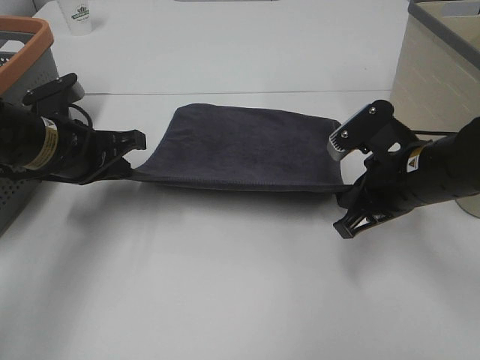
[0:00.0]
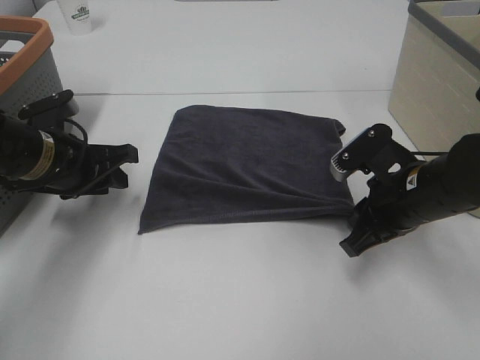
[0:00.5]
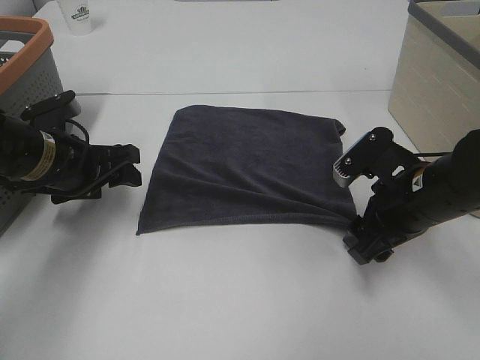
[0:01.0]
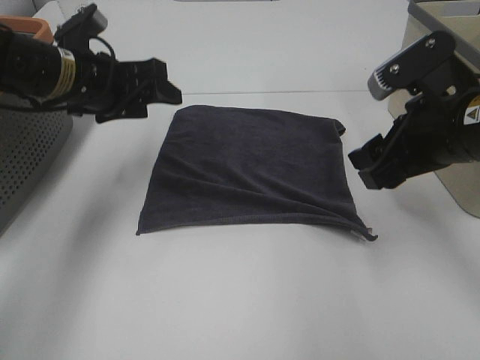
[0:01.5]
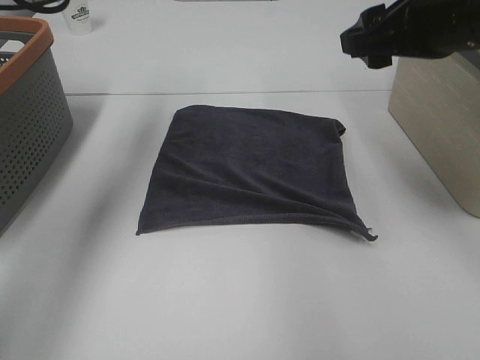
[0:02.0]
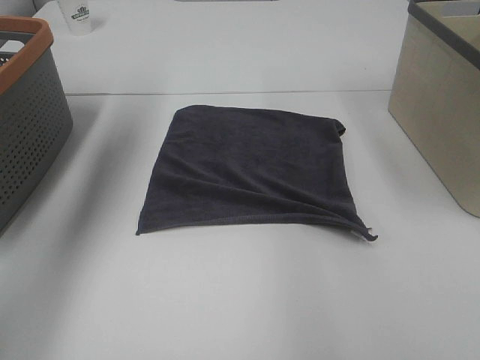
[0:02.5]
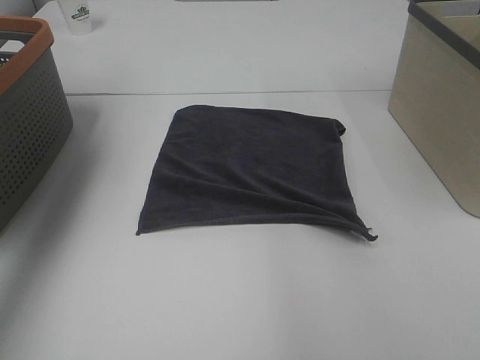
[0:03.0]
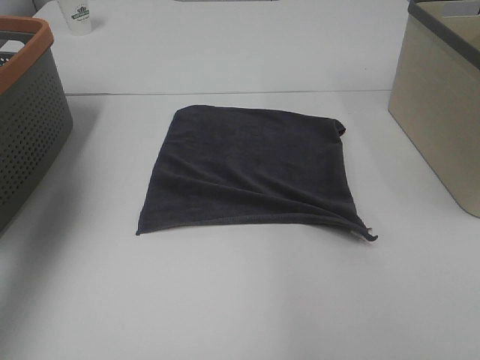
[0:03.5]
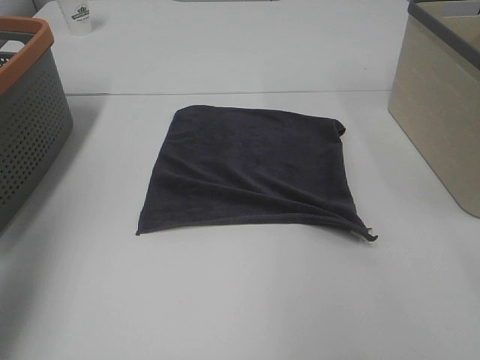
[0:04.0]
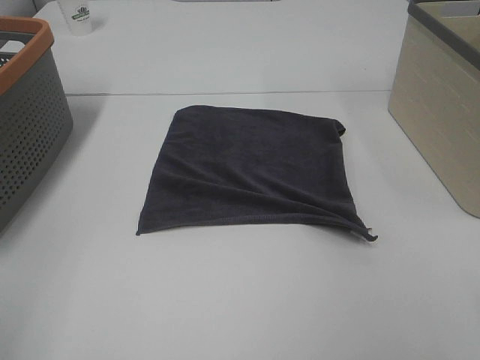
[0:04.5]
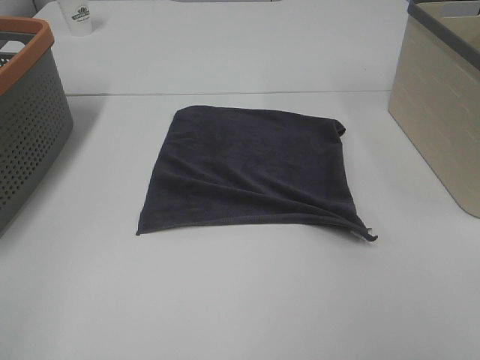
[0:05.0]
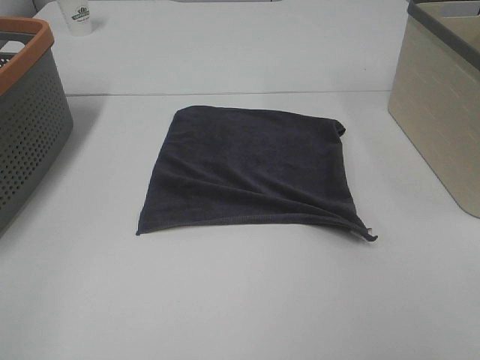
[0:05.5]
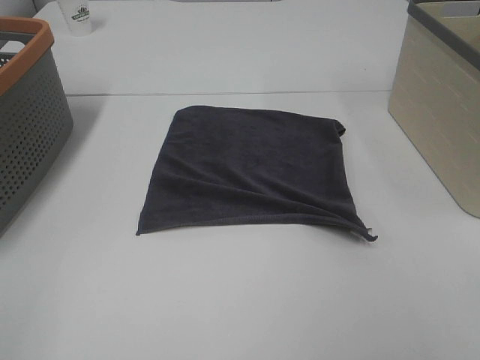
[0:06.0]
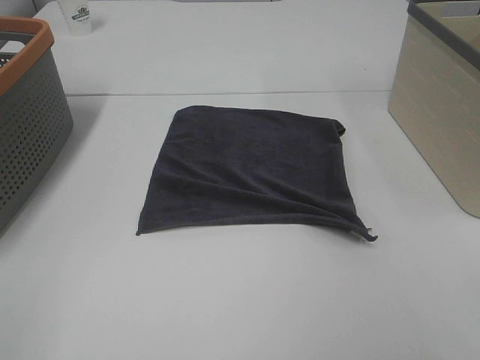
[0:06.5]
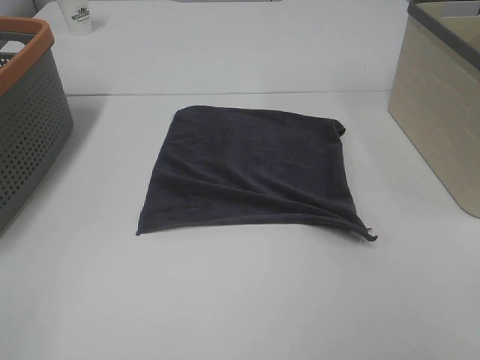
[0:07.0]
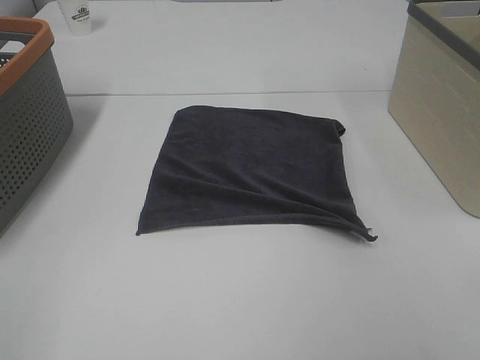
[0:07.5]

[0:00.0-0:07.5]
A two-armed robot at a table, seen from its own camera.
Task of the whole recording: Remove the towel and place it.
0:00.0 to 0:02.0: The right gripper shifts approximately 15 cm upward, and opens; the left gripper shifts some 20 cm upward and forward, and opens.
0:02.0 to 0:04.0: The left gripper moves backward and to the left, some 30 cm, while the right gripper goes about 15 cm backward, to the right and upward.
0:04.0 to 0:05.5: The left gripper moves backward, roughly 20 cm.

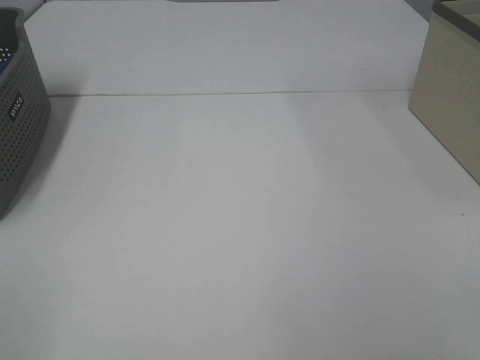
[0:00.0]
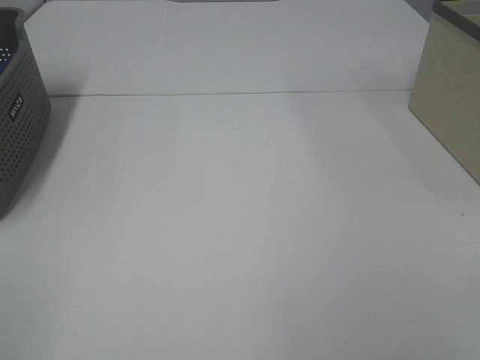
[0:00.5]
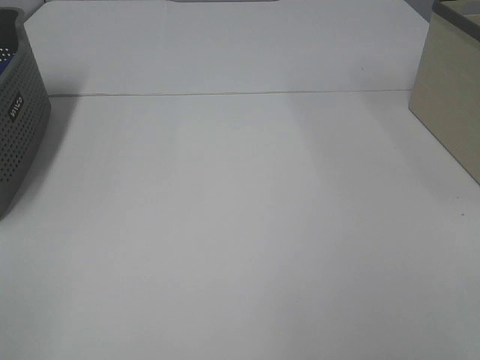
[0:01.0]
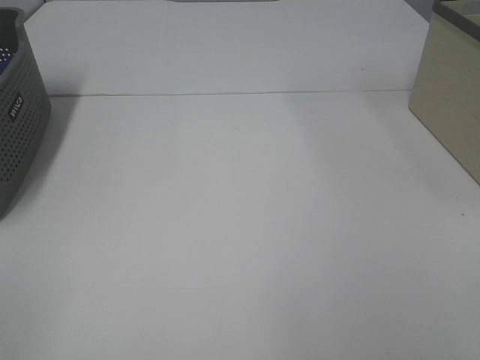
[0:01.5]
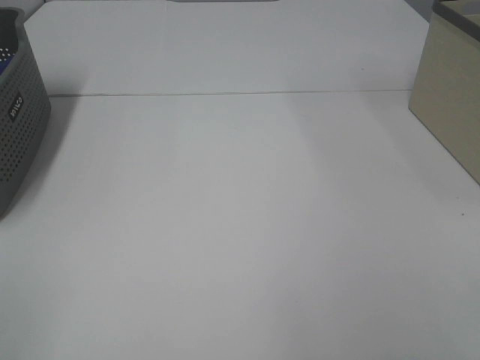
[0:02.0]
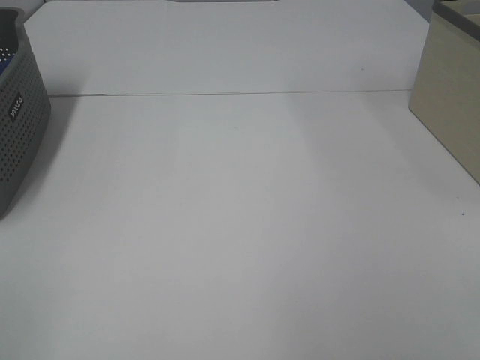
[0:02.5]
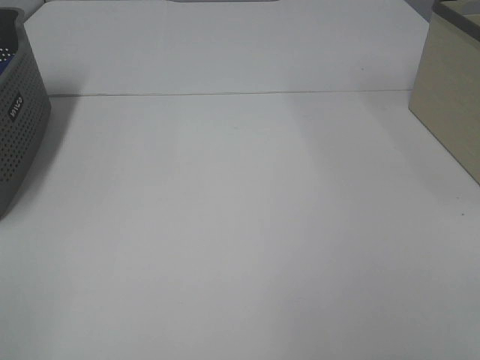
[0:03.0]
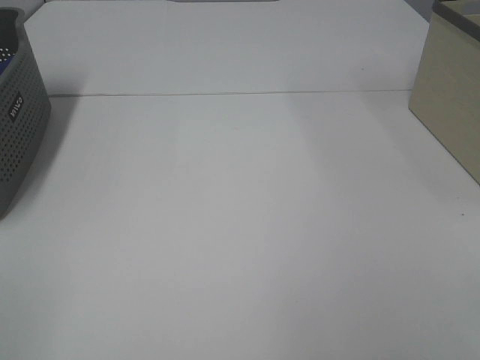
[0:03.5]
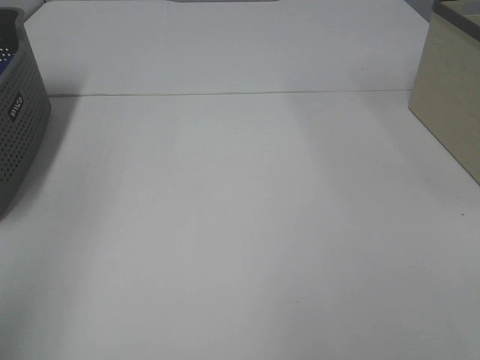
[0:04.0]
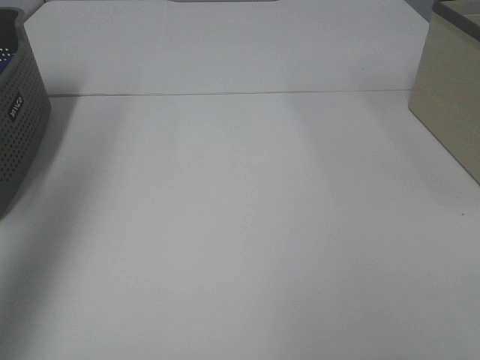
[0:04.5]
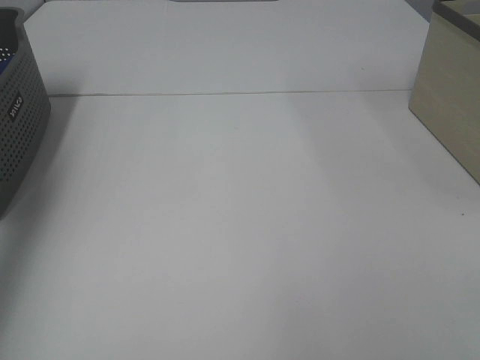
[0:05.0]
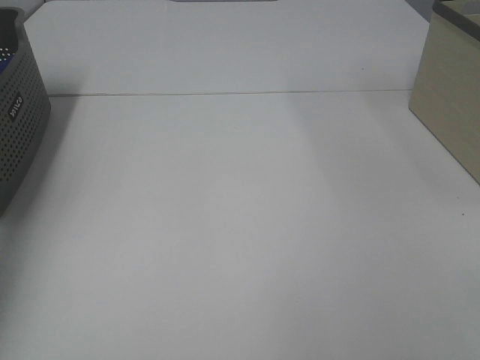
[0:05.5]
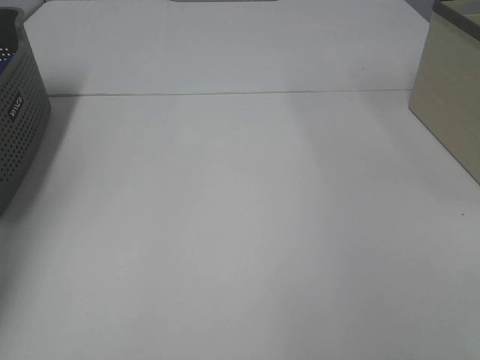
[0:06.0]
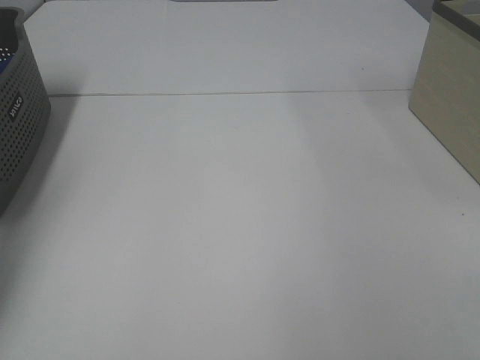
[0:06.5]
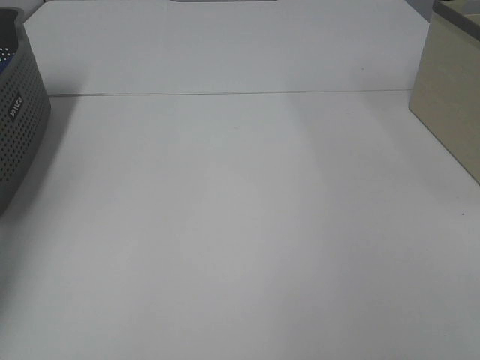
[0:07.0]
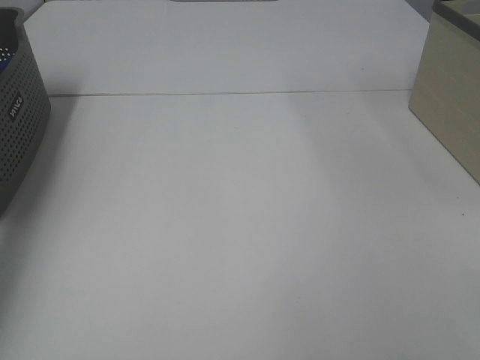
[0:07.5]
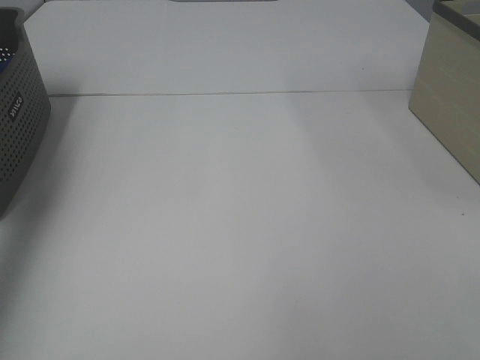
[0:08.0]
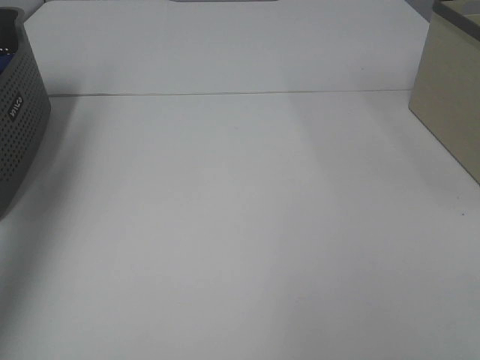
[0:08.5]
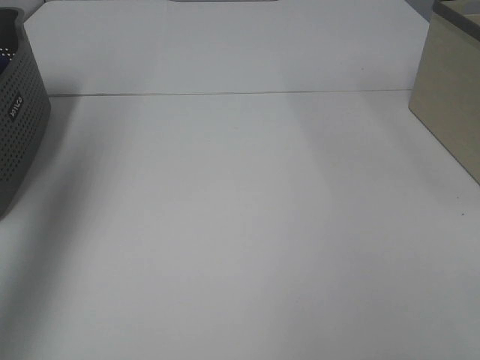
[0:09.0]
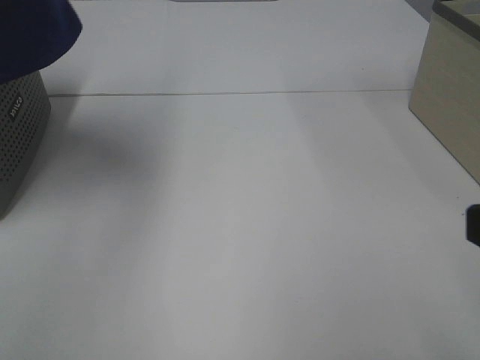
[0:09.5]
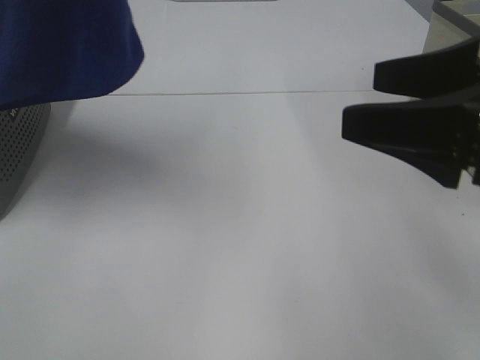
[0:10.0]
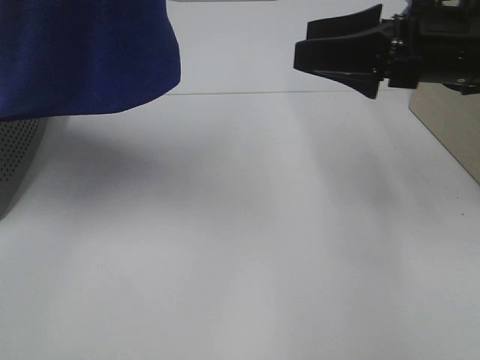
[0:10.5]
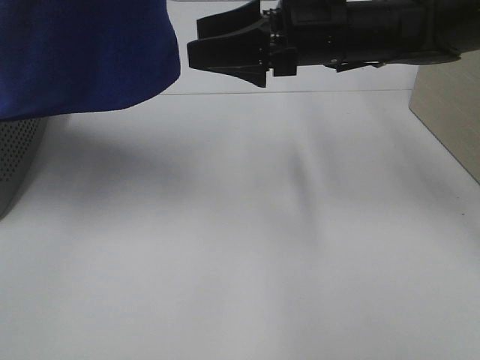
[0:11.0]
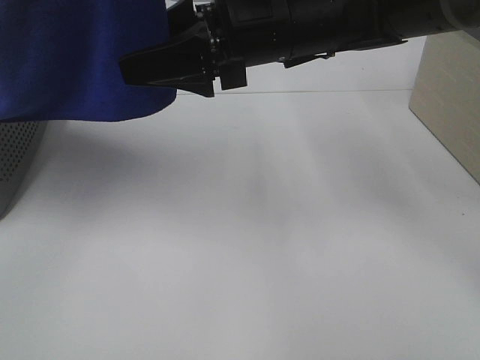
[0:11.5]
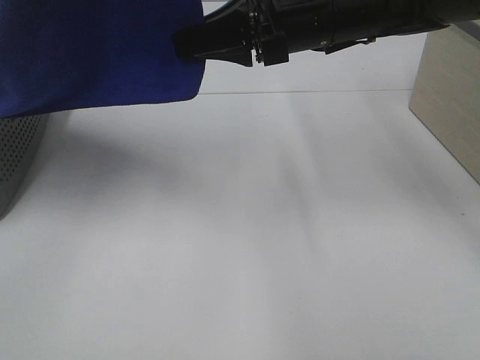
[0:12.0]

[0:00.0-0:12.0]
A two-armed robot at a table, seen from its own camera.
Task of the whole recording: Remove the towel and place it.
Step, 0:09.0 to 0:11.5: Right hand: grab a corner of the blue towel and straighten it.
0:00.0 to 0:02.0: The two grippers keep their place.
0:04.0 to 0:06.0: The left gripper moves forward and downward, some 40 cm.
0:06.0 to 0:08.0: The left gripper travels upward by some 20 cm, and closes up.
0:08.0 to 0:10.0: The right gripper shifts approximately 20 cm forward, while the left gripper moves to the right, upward and backward, roughly 35 cm.
0:10.0 to 0:12.0: The right gripper travels forward and to the left by about 25 cm, and closes its fingers.

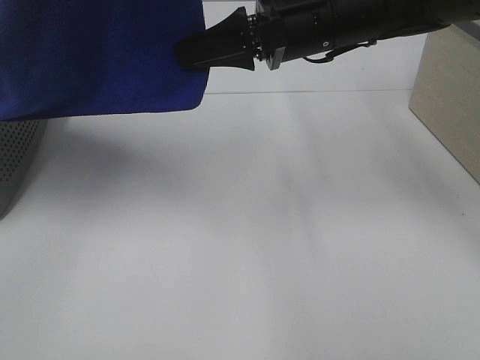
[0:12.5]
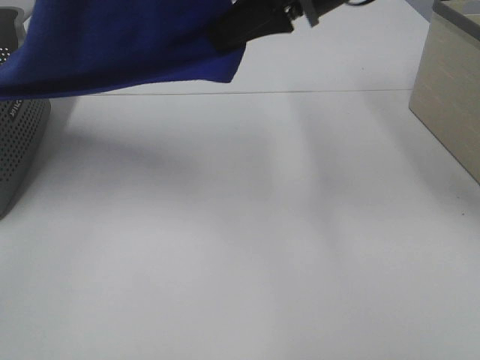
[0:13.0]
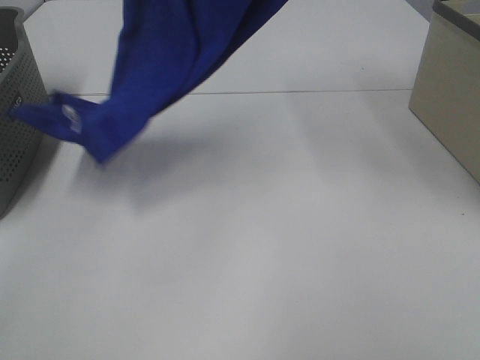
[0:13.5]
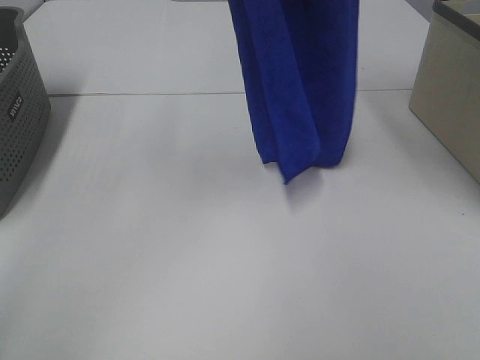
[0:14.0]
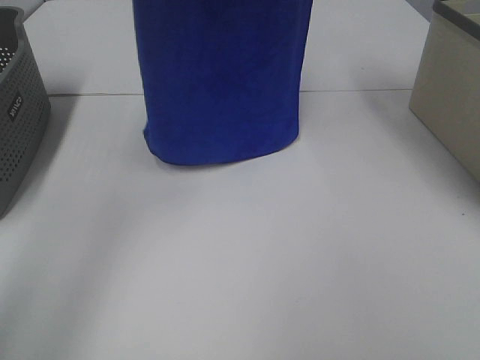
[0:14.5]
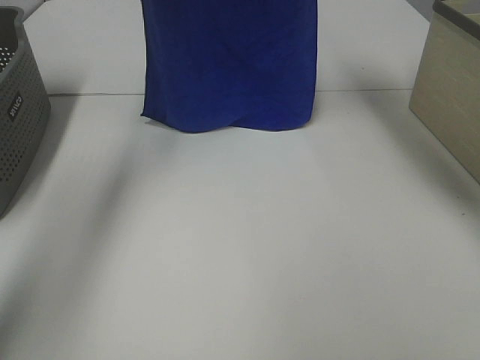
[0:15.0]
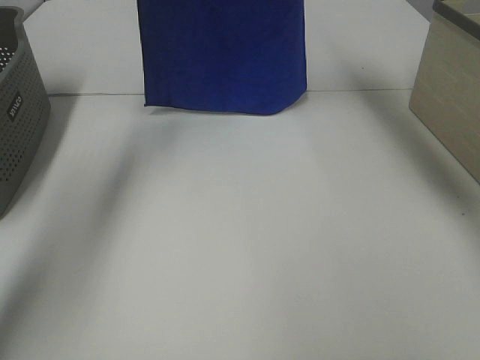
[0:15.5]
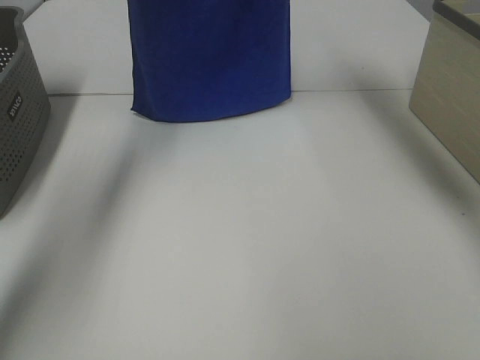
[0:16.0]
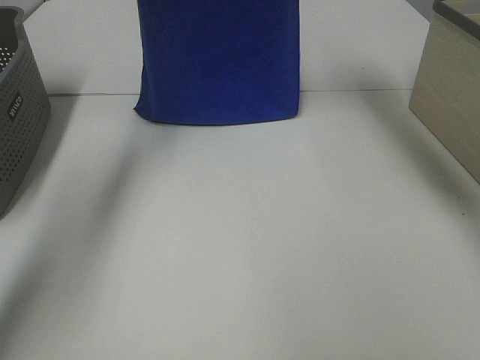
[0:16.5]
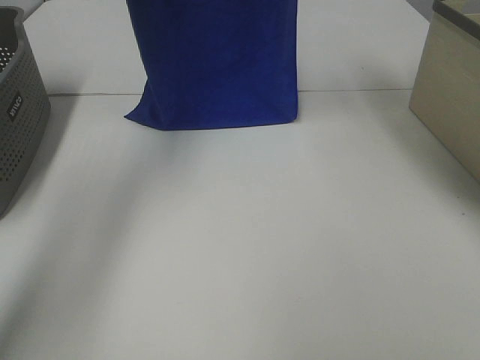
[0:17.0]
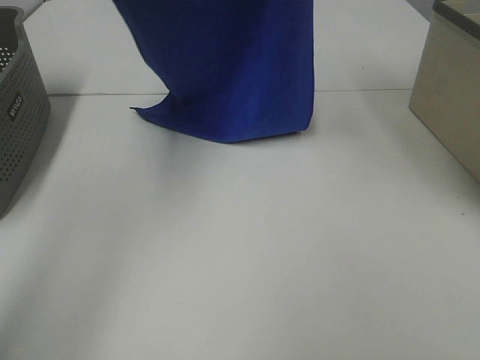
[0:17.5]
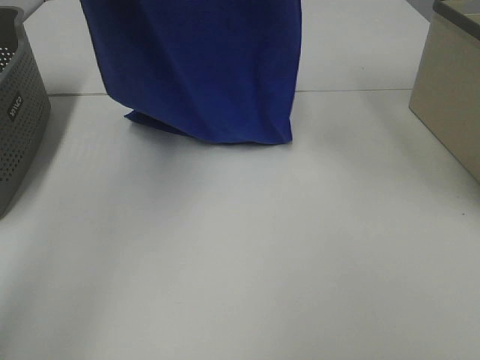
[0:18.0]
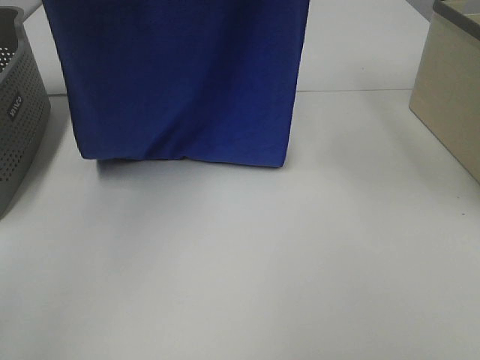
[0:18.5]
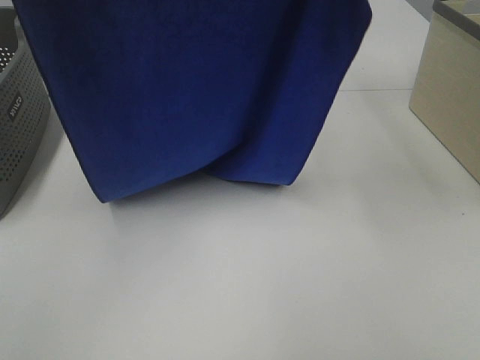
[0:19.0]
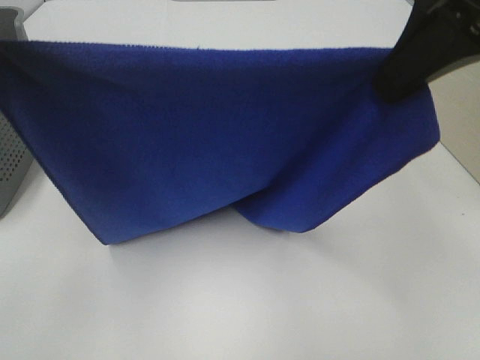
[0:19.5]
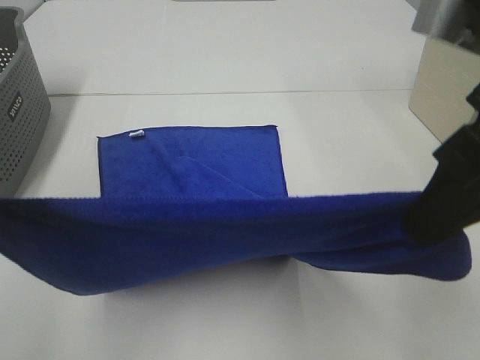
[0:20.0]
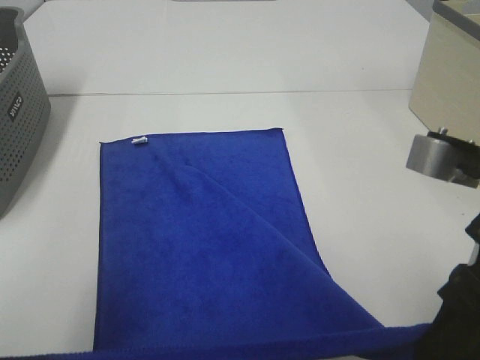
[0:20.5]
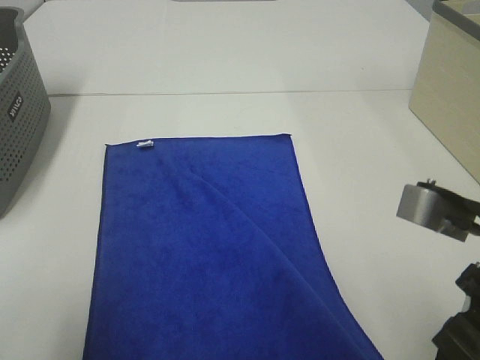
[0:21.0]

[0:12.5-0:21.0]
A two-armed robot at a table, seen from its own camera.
Task of the whole recording: Remove the towel and place it.
Step, 0:12.5 to 0:21.0: Left hand: spread the blue towel flat on the table.
Step, 0:12.5 to 0:21.0: Right hand: spread the blue towel flat on the table.
0:12.5 to 0:14.5: The right gripper moves upward, some 25 cm. The left gripper shifts about 20 cm forward.
0:14.5 to 0:16.5: The right gripper travels forward and downward by some 10 cm. The left gripper heads forward, covering approximately 10 cm.
0:16.5 to 0:19.0: Both grippers travel together backward, some 25 cm.
0:19.0 to 0:21.0: The grippers both shift downward and backward by about 25 cm.
